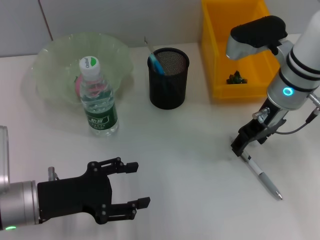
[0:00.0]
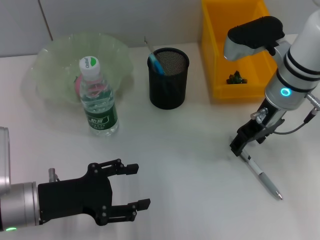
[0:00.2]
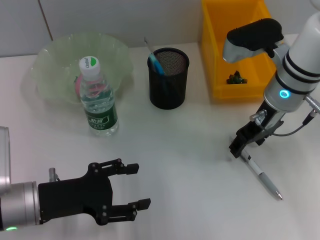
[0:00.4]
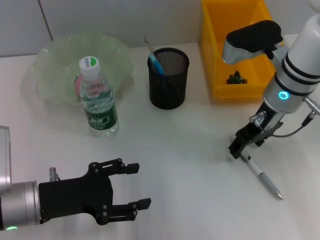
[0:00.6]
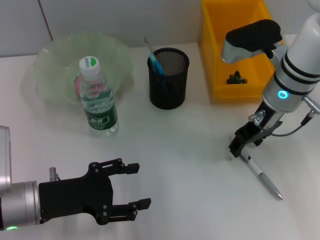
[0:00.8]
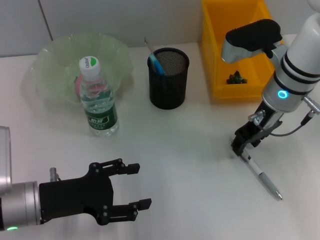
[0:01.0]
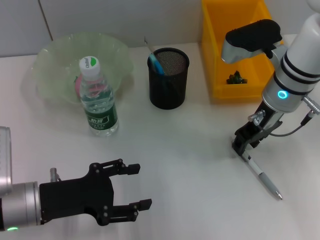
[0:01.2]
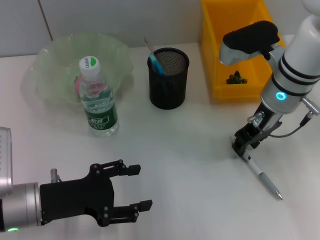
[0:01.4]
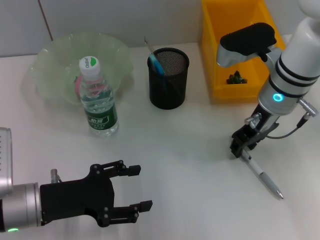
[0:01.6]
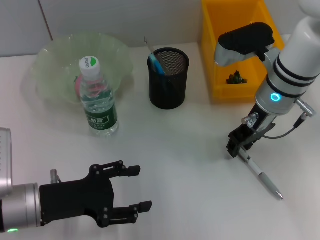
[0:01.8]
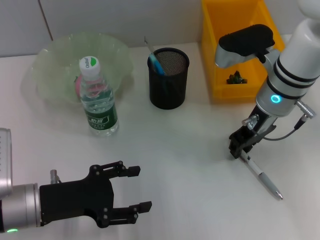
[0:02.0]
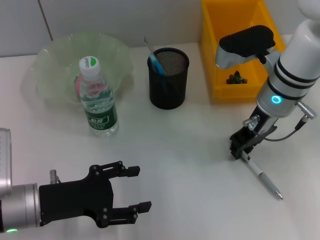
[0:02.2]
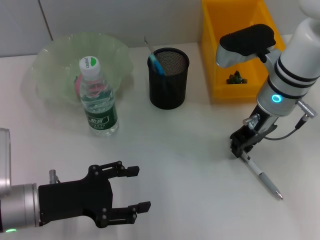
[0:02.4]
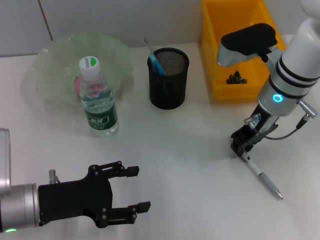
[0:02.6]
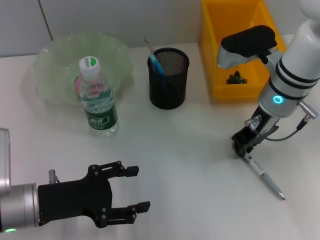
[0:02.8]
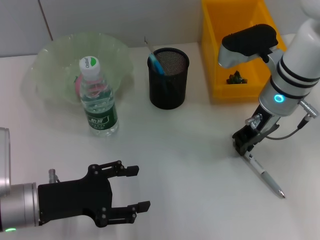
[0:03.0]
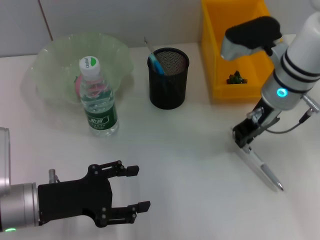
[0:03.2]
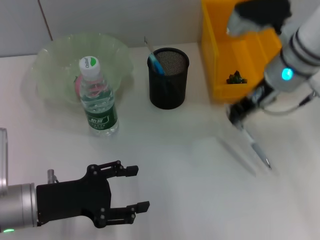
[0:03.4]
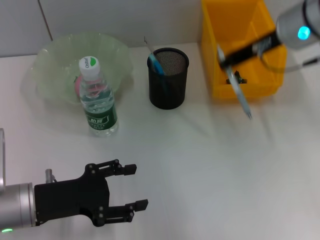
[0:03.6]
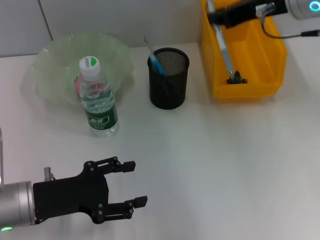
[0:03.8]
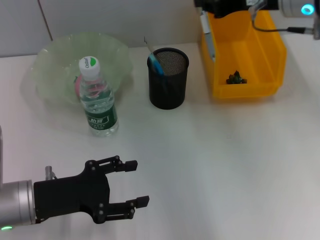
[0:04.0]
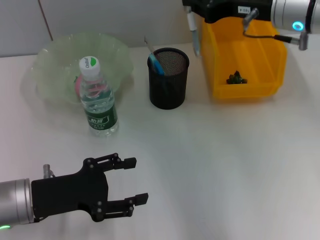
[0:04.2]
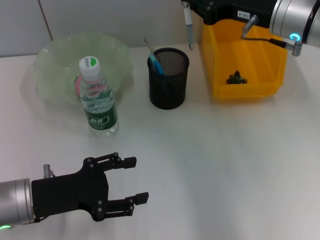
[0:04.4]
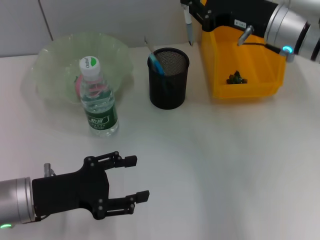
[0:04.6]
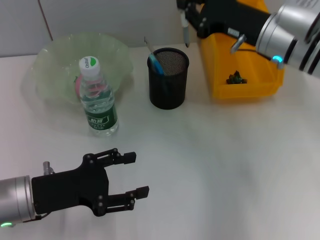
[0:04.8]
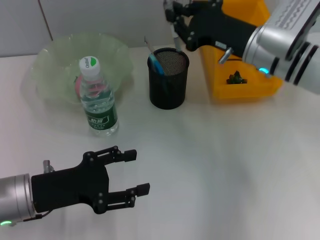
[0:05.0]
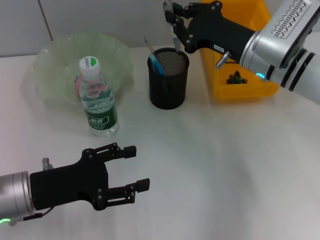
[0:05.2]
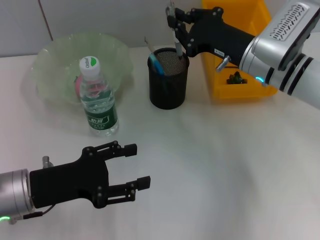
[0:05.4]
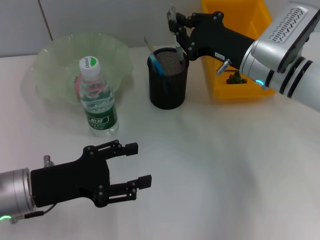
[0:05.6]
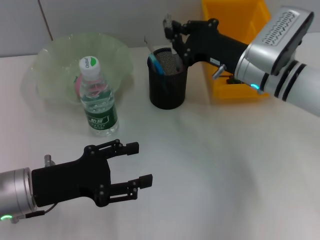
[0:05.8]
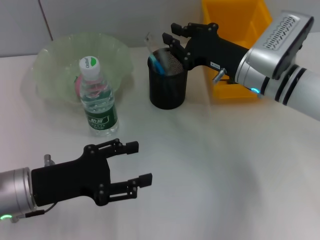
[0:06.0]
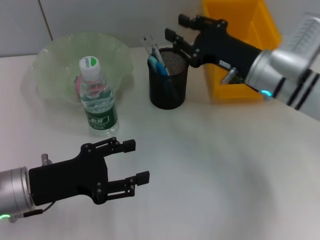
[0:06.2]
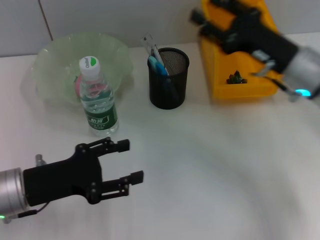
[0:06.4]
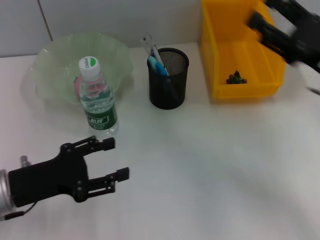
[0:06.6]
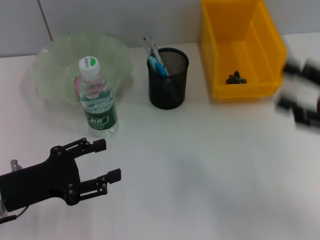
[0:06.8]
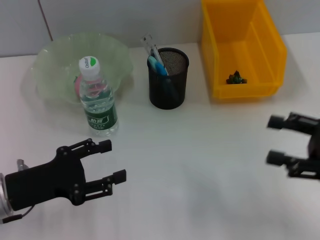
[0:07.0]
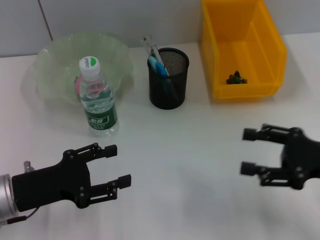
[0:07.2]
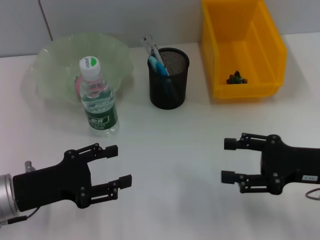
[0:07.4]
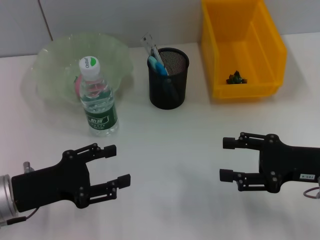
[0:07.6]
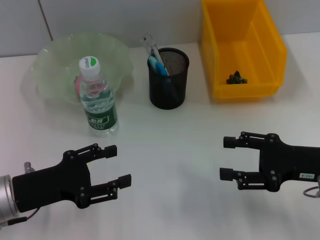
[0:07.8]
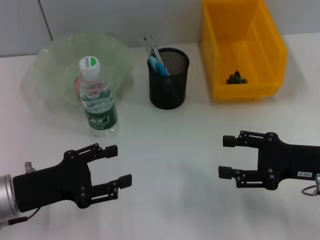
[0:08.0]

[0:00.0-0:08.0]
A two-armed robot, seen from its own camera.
Step, 0:00.0 to 0:03.0: Grab the gray spring-action pen with the right hand.
Step, 0:03.2 to 0:06.0: Place the gray spring-action pen into the pen holder with the right hand.
0:00.0 to 0:01.6: The right gripper closes up.
0:01.6 to 0:03.2: The right gripper closes up.
0:03.2 to 0:04.8: The right gripper travels upward and back again, about 10 cm each way.
0:04.8 to 0:06.4: The right gripper shifts about 5 cm backward.
0:06.4 to 0:08.0: The right gripper shifts some 10 cm backward and to the right, and opens its fingers.
